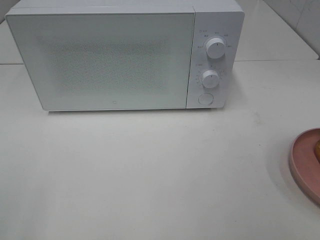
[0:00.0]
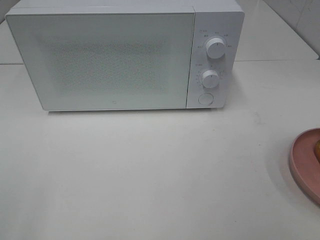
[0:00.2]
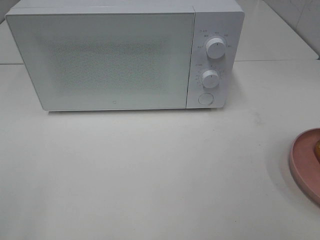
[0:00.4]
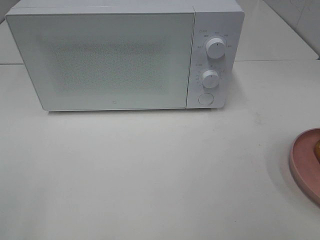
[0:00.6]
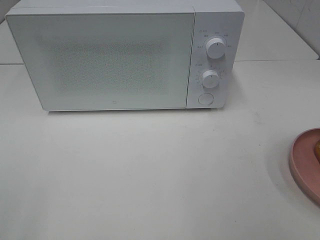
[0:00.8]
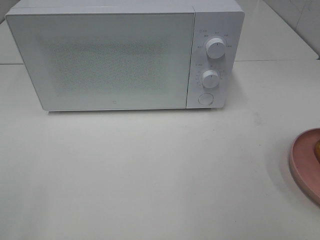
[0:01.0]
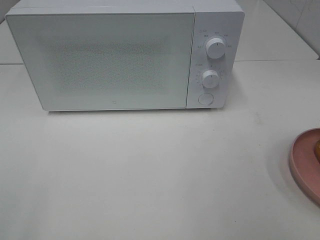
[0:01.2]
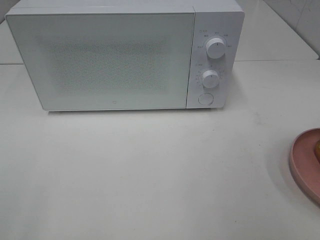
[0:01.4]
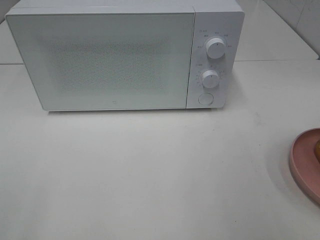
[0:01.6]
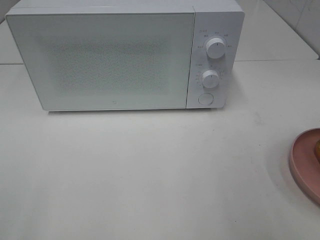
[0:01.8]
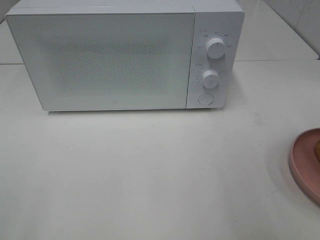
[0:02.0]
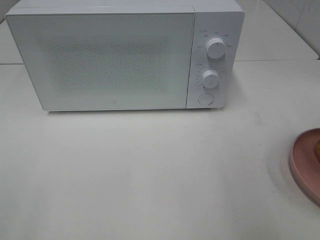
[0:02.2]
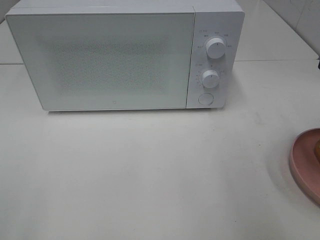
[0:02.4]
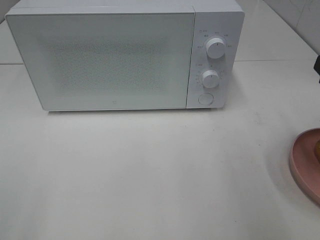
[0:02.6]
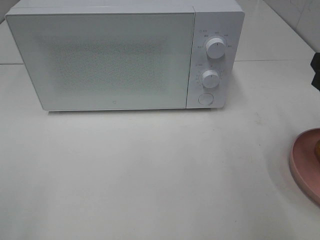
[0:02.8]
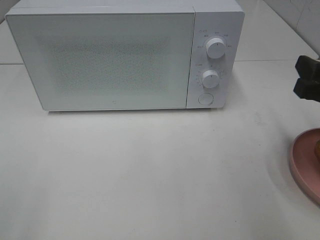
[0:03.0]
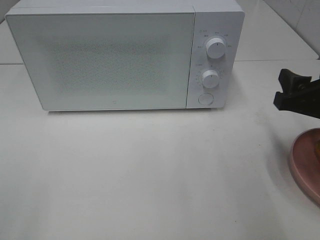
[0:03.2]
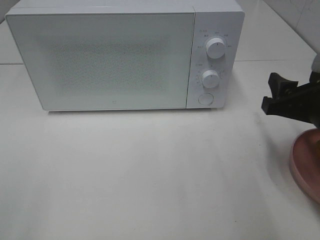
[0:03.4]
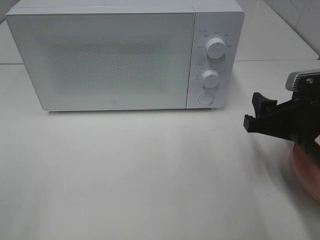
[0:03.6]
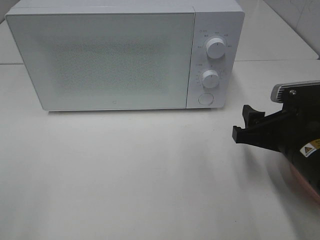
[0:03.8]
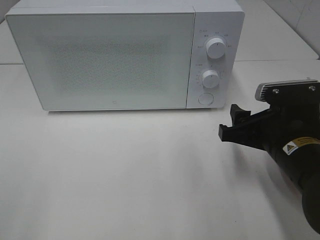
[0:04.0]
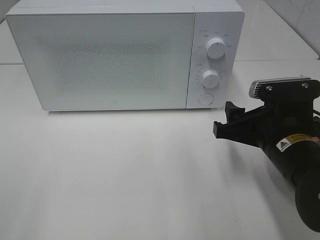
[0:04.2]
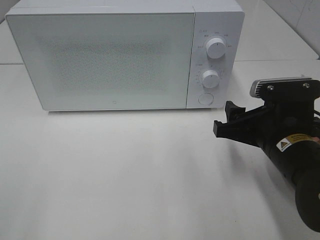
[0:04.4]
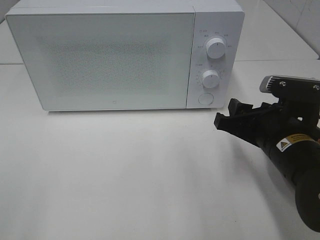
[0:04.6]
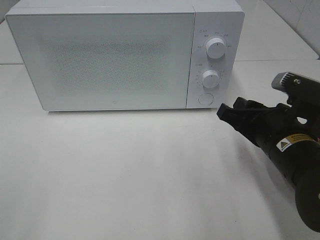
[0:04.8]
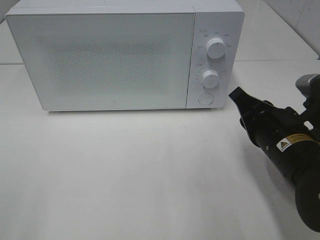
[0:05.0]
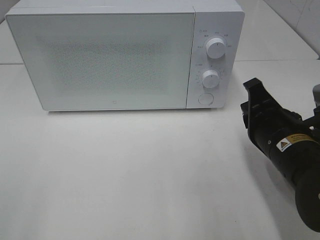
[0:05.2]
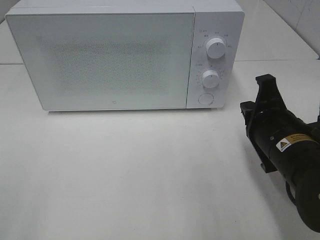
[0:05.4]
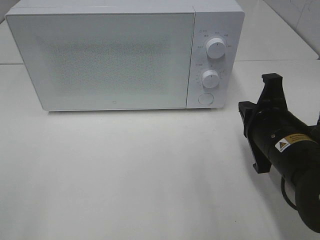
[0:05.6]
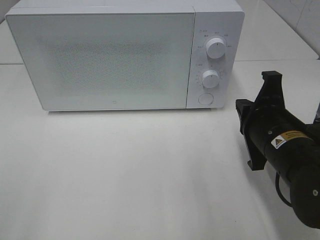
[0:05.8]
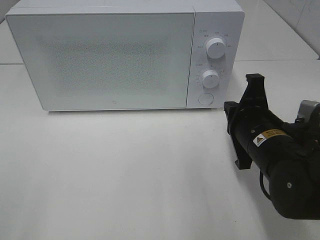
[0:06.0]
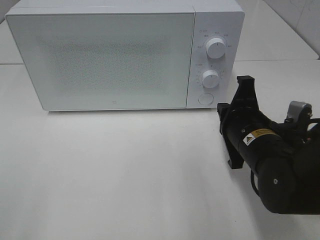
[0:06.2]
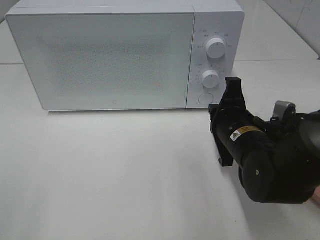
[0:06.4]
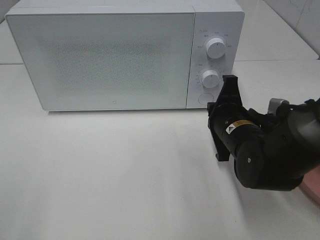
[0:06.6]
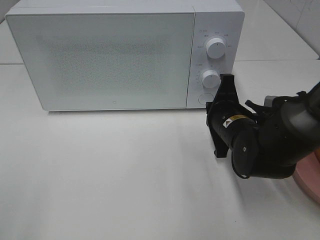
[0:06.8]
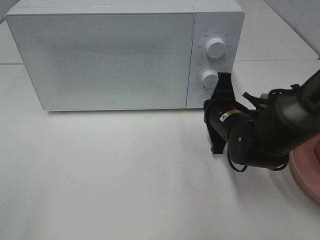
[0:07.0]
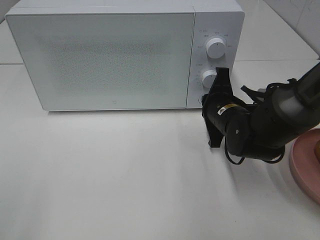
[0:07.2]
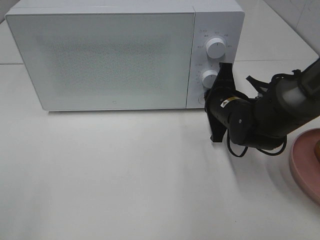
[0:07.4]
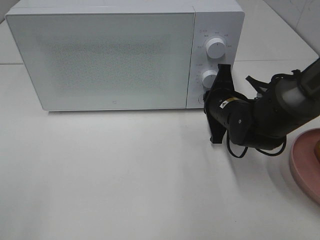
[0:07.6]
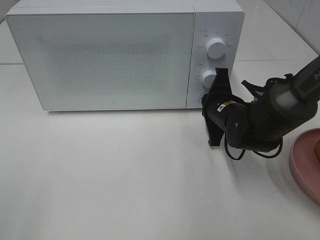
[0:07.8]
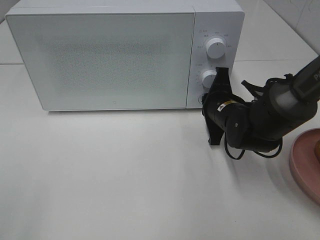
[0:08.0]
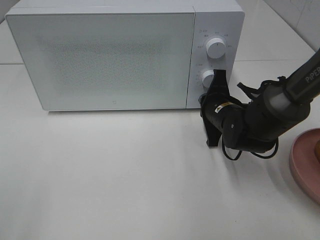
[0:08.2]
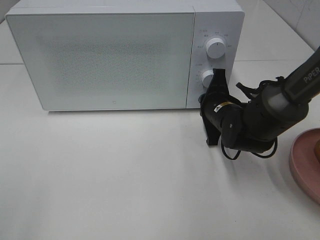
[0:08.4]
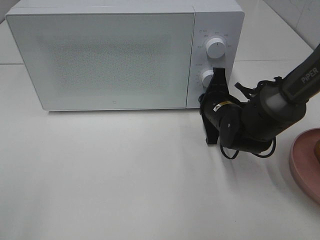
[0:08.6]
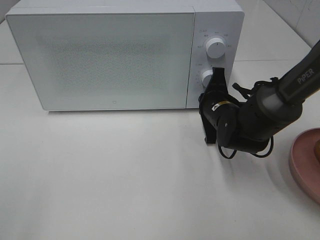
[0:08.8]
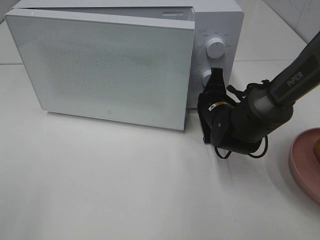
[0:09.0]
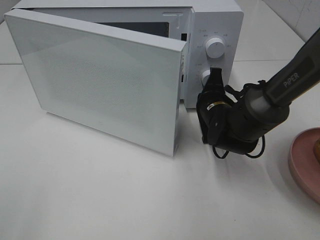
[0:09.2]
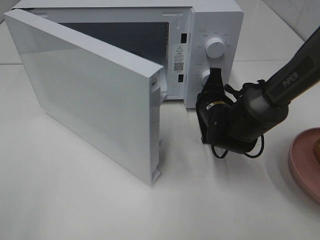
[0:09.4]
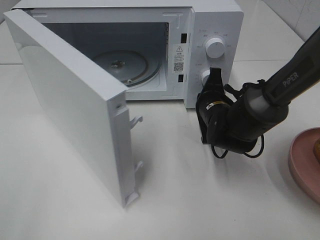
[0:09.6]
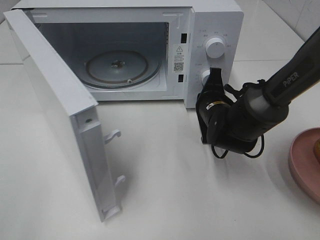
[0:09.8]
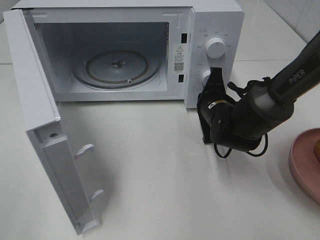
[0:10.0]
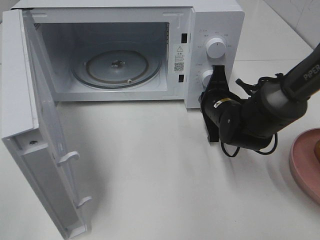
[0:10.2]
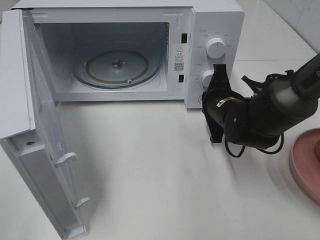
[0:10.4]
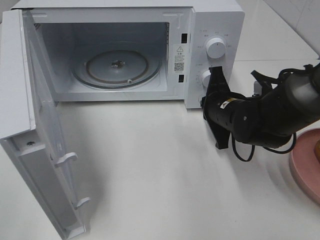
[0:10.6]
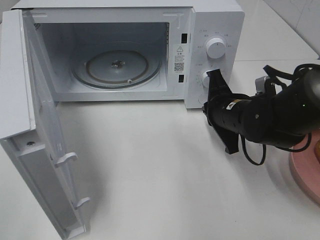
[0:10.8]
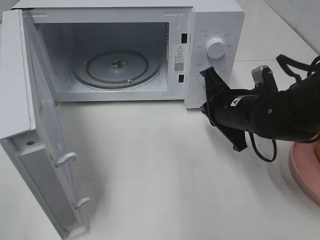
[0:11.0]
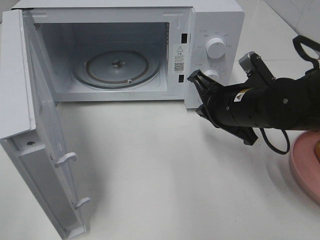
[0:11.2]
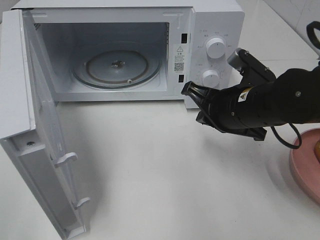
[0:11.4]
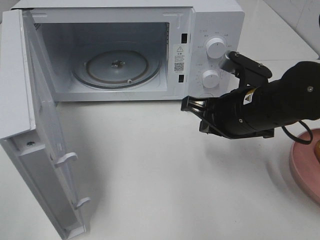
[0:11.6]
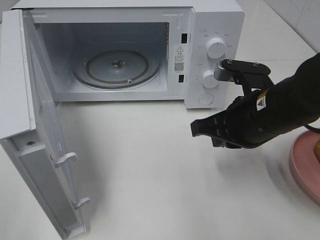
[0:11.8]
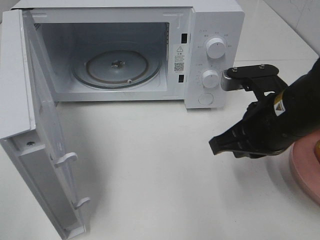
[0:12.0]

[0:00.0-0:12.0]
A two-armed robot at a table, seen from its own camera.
Task of the whole recording: Heat the burger.
Step, 0:00.0 to 0:10.4: Right hand: press the switch.
0:01.6 to 0:03.0: The right gripper moves forward and downward, approximately 15 cm.
0:03.0 to 0:04.4: The right gripper moves to the left and downward, approximately 10 cm.
0:04.4 to 0:06.0: The right gripper closes up.
0:06.0 to 0:07.6: The right gripper is displaced forward by some 10 cm.
0:07.6 to 0:09.0: The grippers make only small movements.
0:10.4 to 0:12.0: The right gripper is displaced backward and upward by about 15 cm.

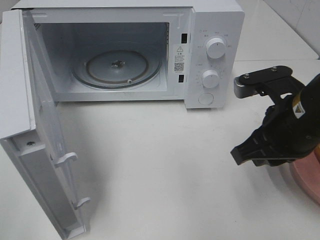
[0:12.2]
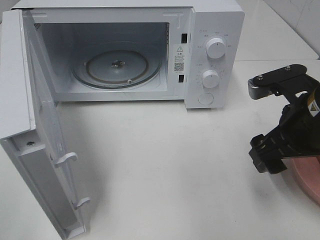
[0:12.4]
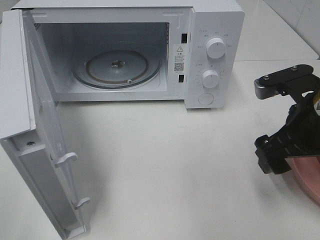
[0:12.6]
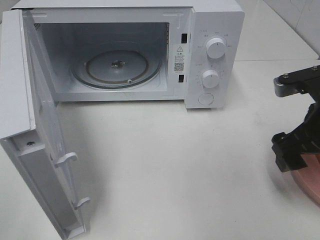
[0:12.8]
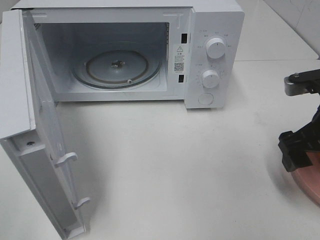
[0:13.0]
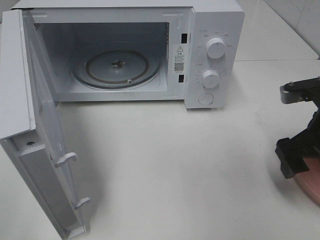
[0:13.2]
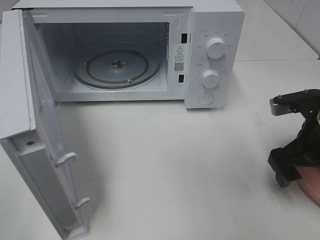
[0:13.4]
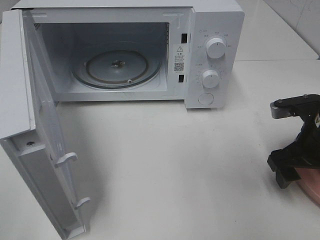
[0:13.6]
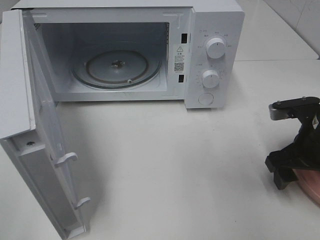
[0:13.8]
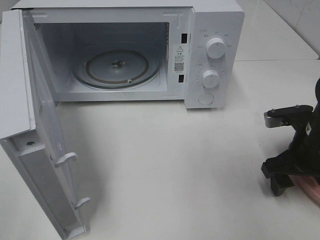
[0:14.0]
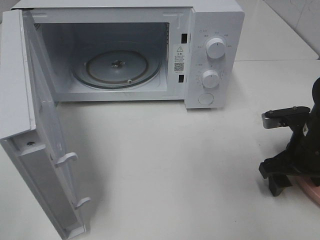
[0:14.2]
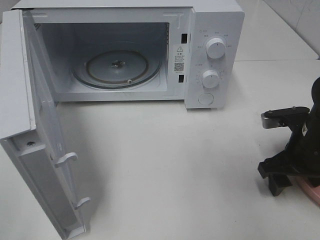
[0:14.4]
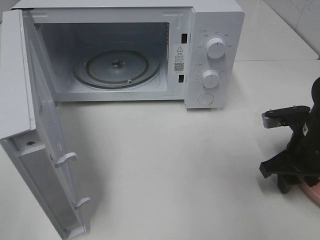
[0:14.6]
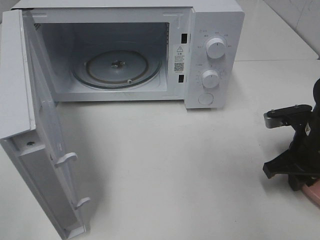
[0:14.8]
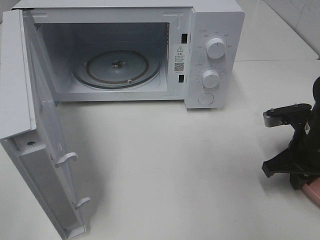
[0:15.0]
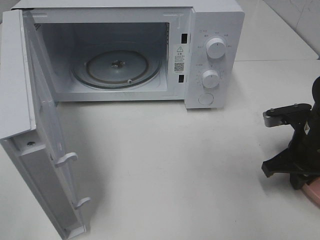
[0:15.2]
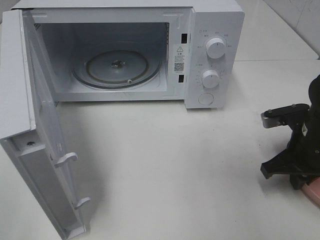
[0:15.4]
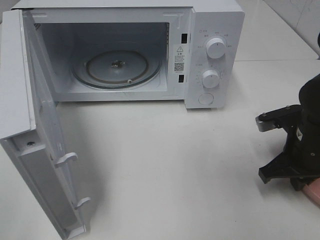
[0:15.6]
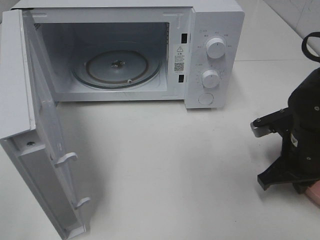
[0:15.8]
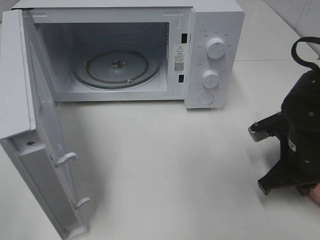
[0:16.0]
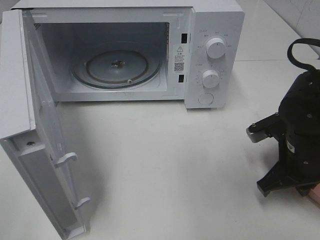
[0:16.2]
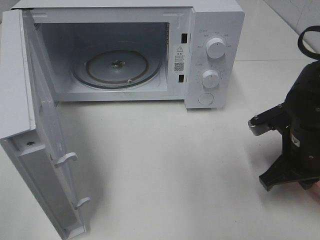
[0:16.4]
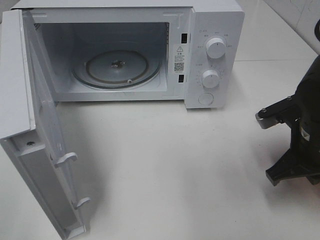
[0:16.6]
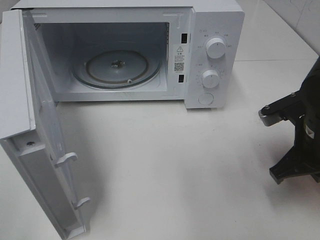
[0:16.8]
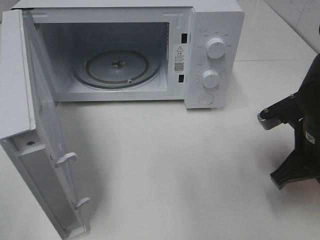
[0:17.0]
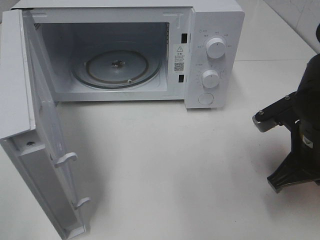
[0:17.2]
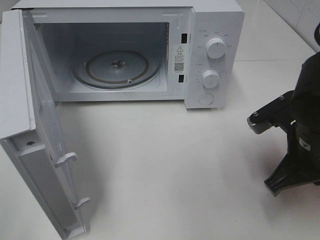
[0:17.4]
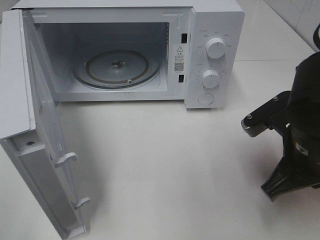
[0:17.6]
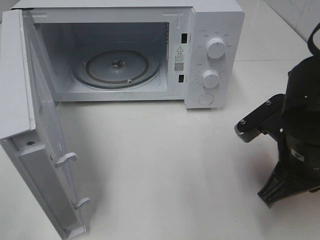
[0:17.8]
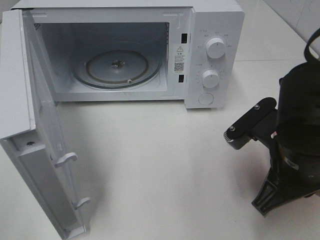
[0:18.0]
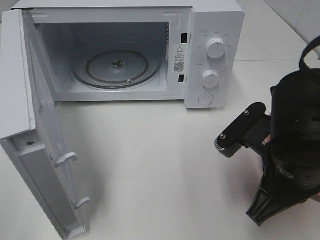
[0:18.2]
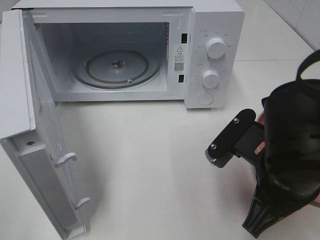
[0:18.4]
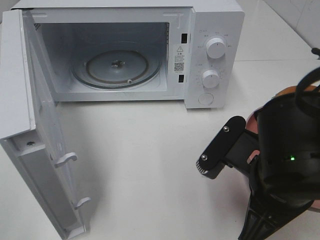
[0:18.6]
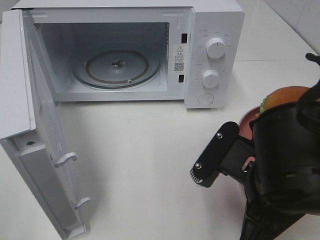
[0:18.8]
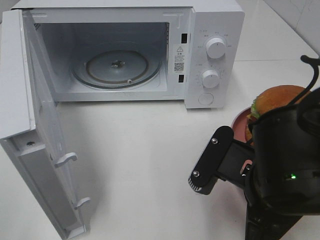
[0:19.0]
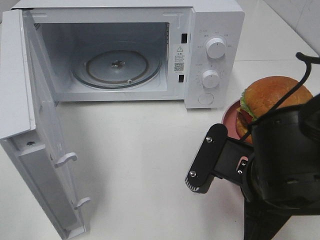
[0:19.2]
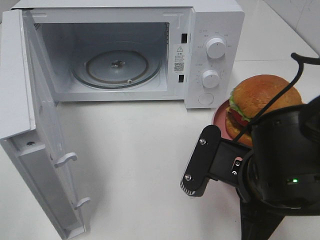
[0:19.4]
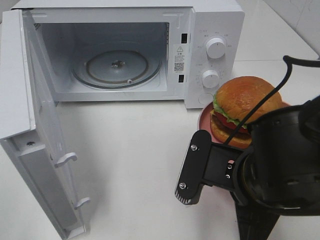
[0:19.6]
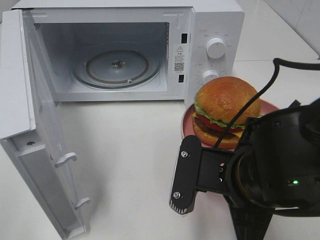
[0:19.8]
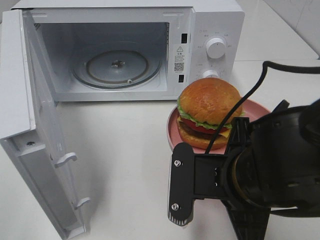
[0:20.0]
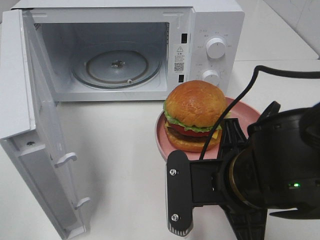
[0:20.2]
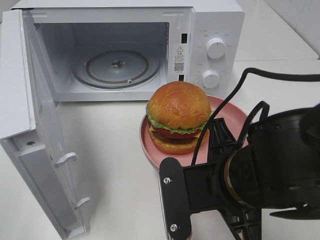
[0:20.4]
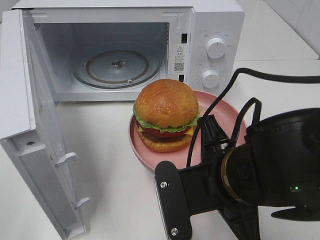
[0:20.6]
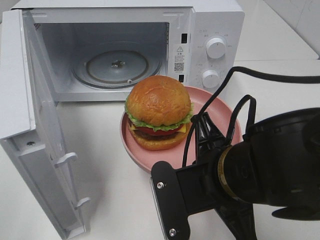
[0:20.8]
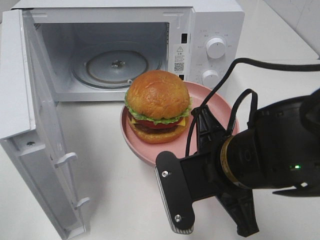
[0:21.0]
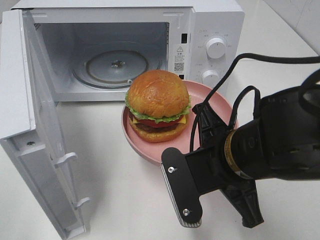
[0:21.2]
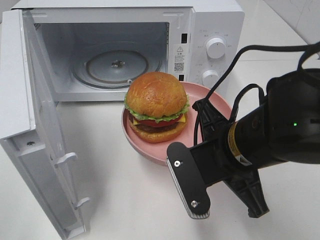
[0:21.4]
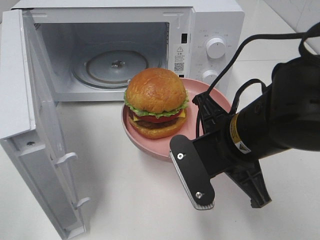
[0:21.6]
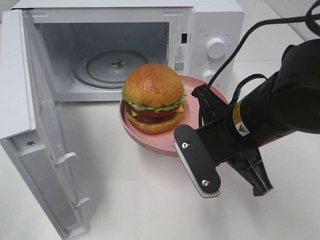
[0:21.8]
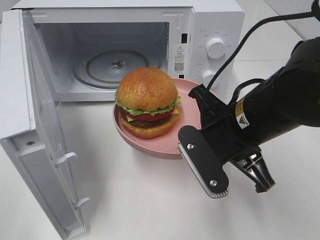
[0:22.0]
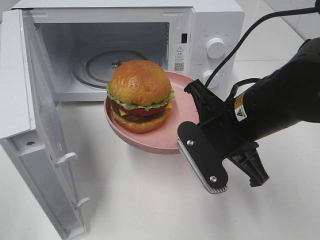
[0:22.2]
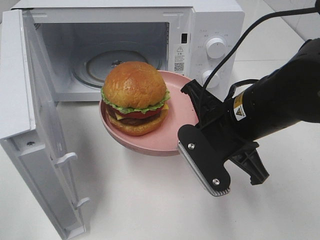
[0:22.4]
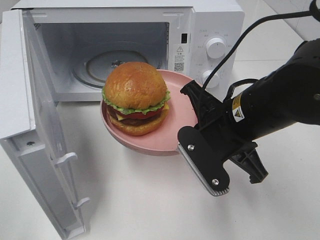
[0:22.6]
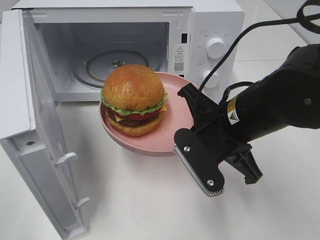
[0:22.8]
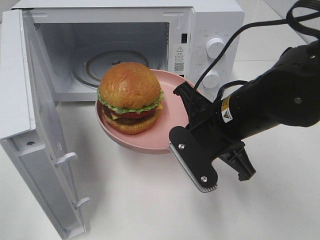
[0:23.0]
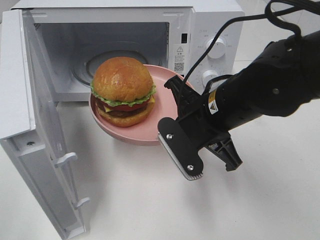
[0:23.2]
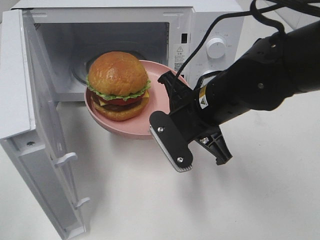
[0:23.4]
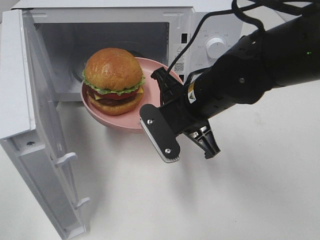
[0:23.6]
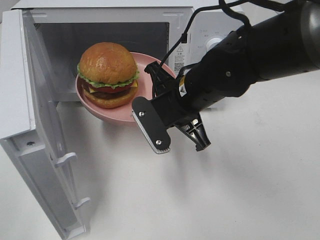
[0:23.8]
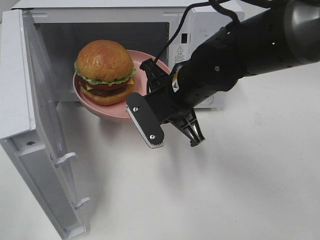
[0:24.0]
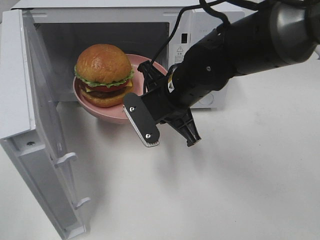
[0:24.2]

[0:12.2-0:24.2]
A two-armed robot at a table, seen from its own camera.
Task of the whole recording: Heat the burger.
Step, 0:12.2 to 0:15.0: Right hand: grab the plate with the hamburger.
0:12.2 to 0:13.8: The right gripper shifts some 10 cm to the right and downward, and opens up.
0:13.8 to 0:15.2: The right gripper closes its fingers.
0:15.2 to 0:16.6: The right gripper ends up roughly 5 cm from where it was.
0:16.6 to 0:18.2: The right gripper moves to the left and backward, approximately 10 cm.
0:18.2 to 0:19.8: The right gripper shifts by about 5 cm.
0:21.2 to 0:22.6: The right gripper shifts approximately 5 cm forward.
0:22.6 to 0:24.2: The right gripper shifts about 10 cm forward and to the left.
